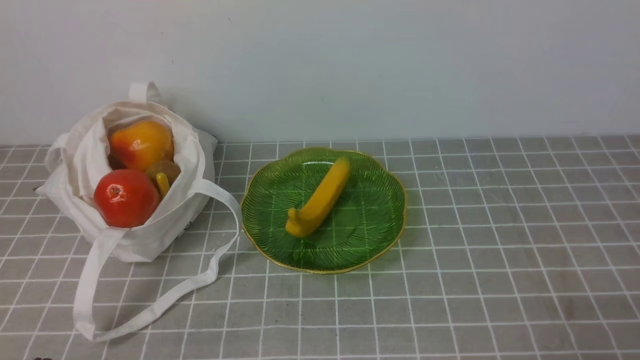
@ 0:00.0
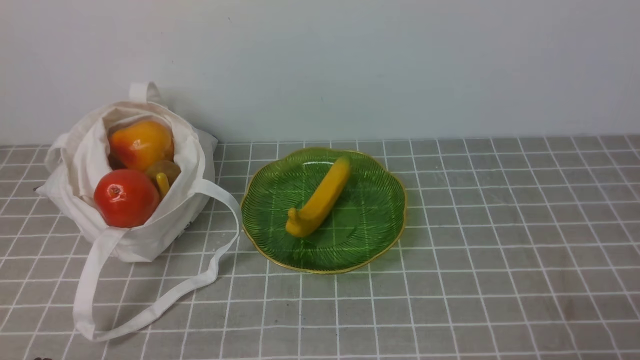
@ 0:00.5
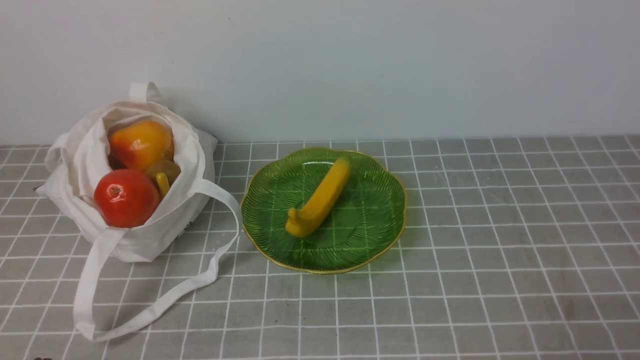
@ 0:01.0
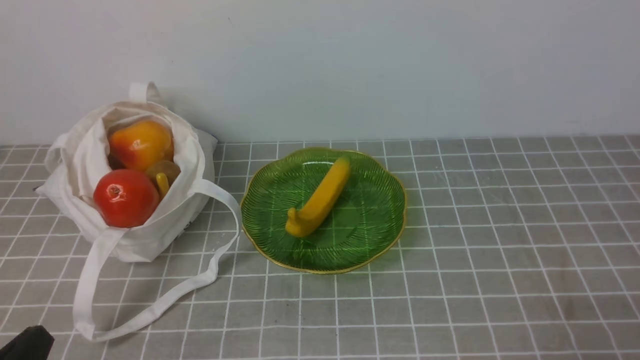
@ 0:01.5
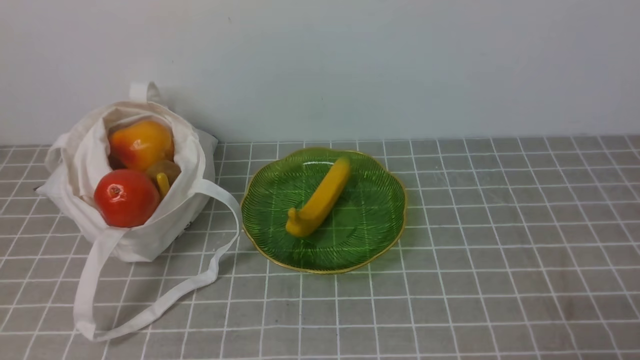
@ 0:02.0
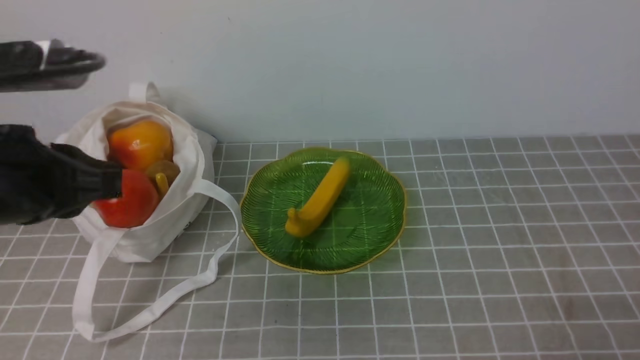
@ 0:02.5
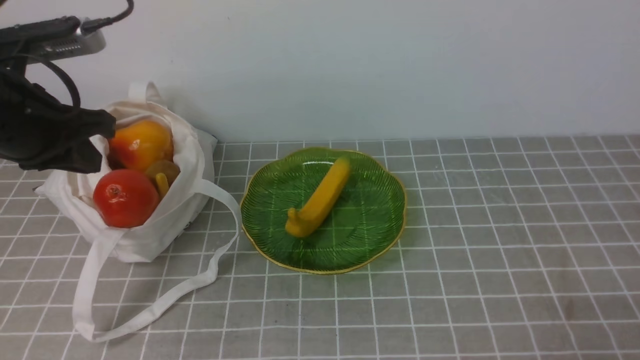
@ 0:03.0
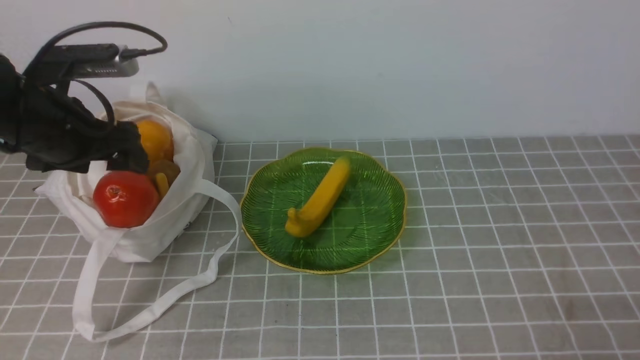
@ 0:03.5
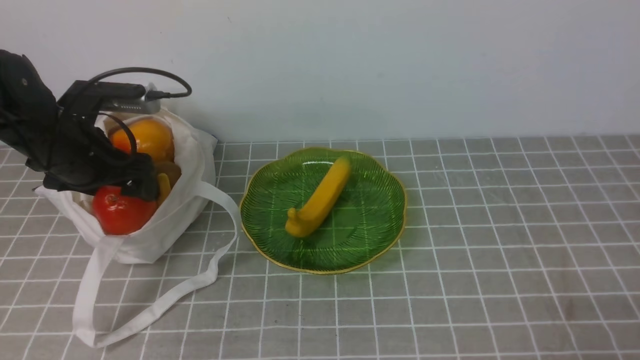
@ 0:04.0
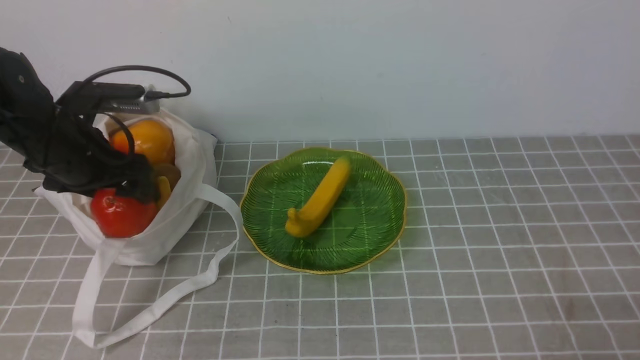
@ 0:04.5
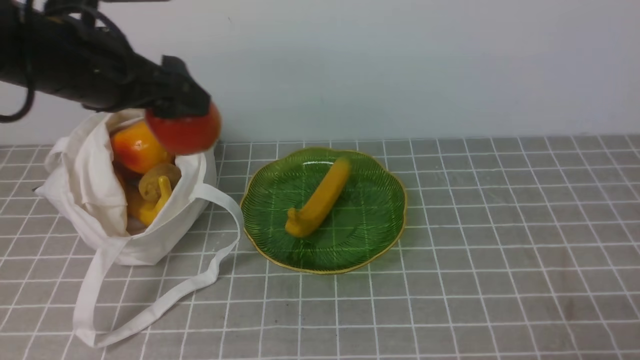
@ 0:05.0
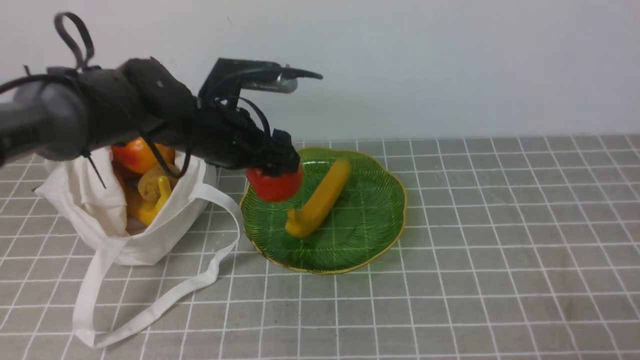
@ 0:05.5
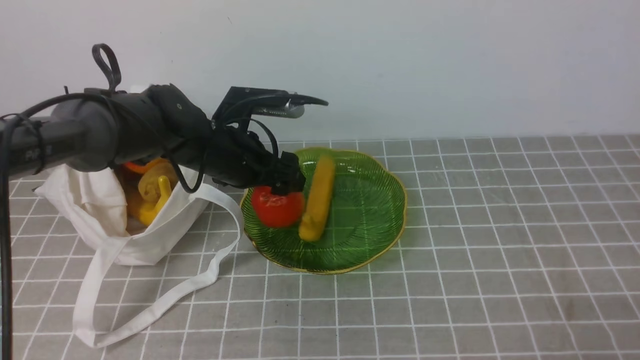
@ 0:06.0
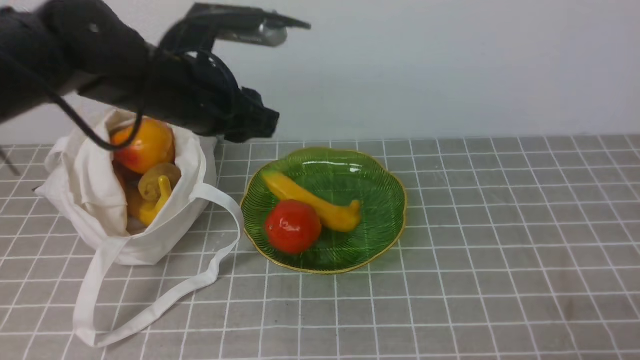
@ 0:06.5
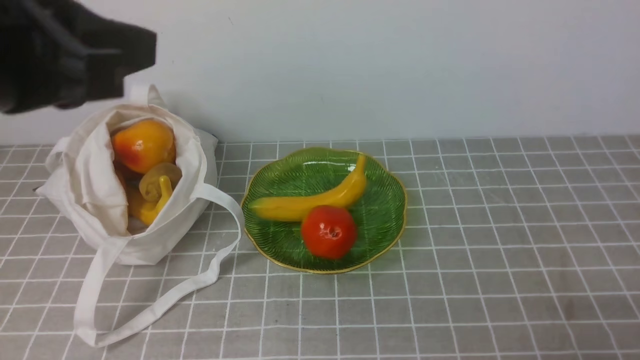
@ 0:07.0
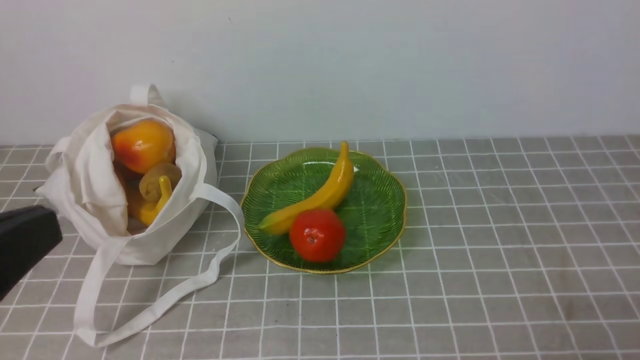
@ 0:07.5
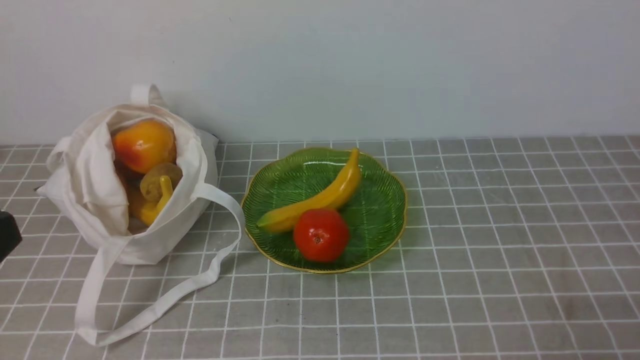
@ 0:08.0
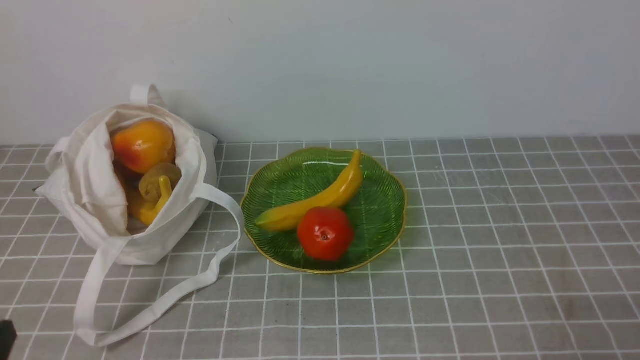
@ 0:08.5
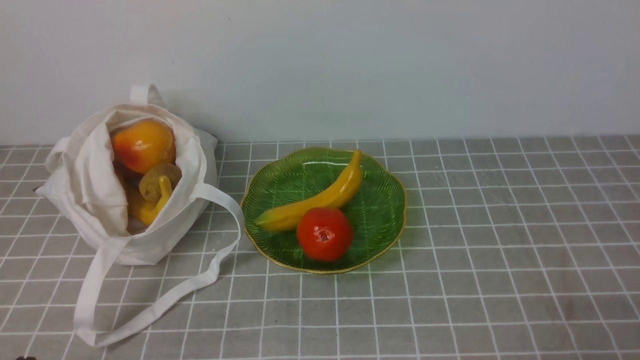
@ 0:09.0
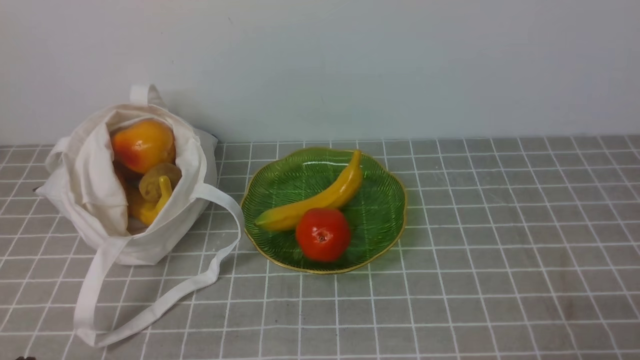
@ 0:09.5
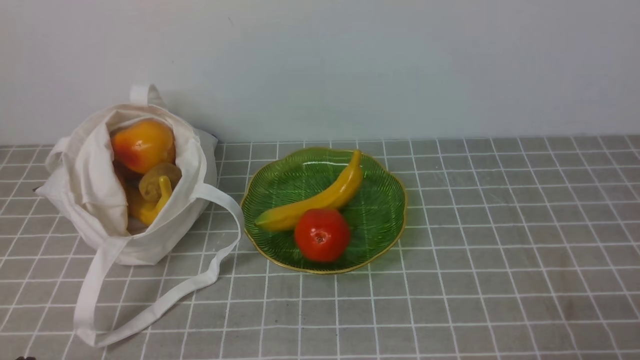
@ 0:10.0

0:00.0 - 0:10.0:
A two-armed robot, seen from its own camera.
Step, 0:00.0 - 0:04.0: use the left arm to grab a pomegranate from the bag.
Step, 0:05.0 - 0:06.0: use the left arm to put the pomegranate into the empty plate on the right.
0:02.0 - 0:04.0: The left gripper is displaced forward by some 30 cm, and opens its fingers.
0:04.0 - 0:06.0: The left gripper travels to the right by approximately 15 cm.
0:06.0 - 0:08.0: The left gripper goes roughly 35 cm backward, and closes its fingers.
